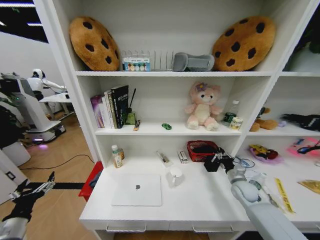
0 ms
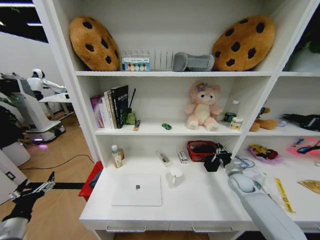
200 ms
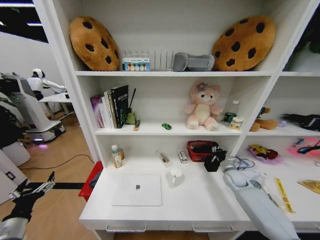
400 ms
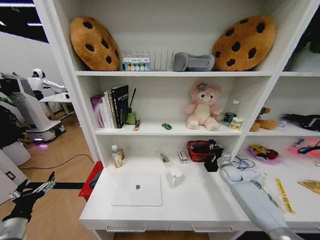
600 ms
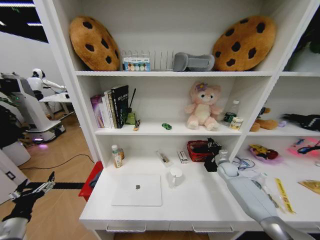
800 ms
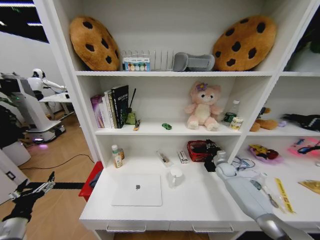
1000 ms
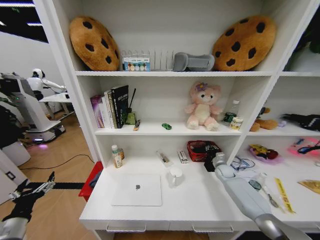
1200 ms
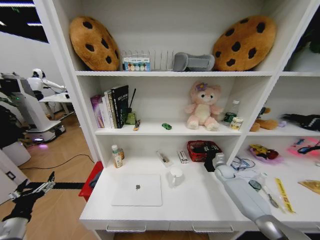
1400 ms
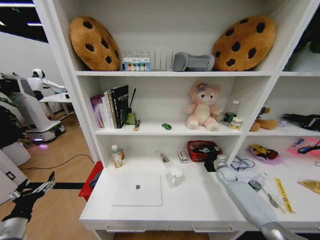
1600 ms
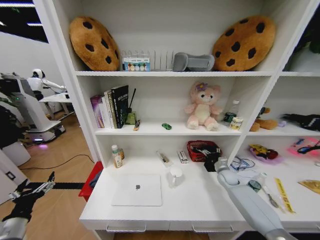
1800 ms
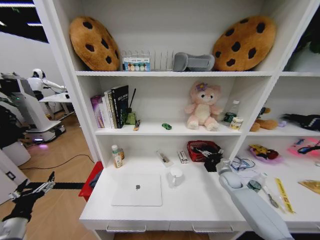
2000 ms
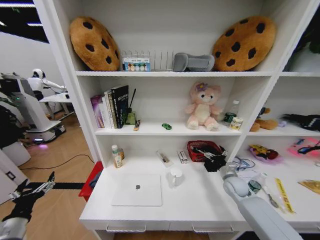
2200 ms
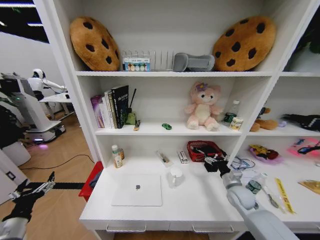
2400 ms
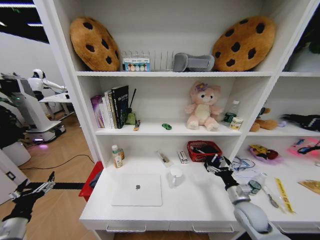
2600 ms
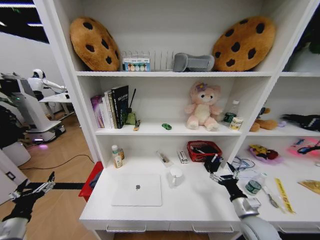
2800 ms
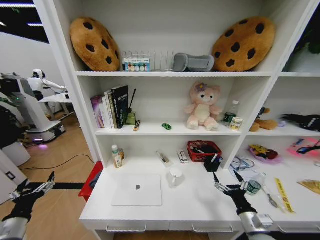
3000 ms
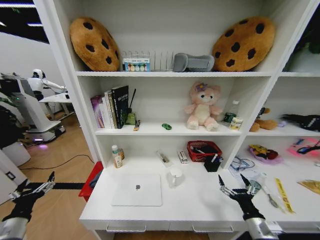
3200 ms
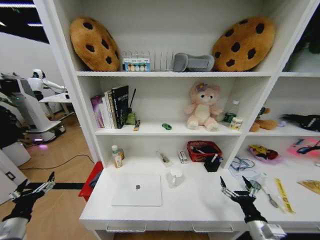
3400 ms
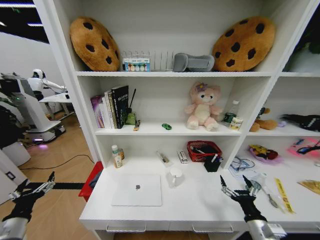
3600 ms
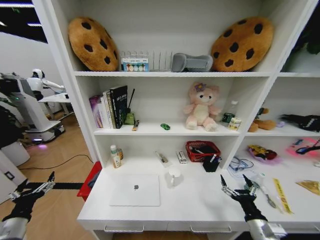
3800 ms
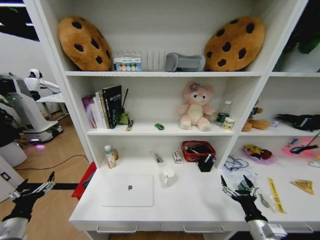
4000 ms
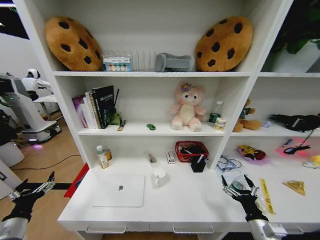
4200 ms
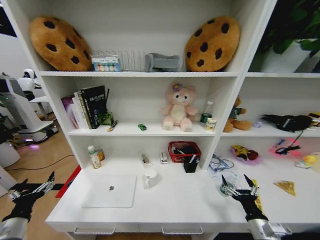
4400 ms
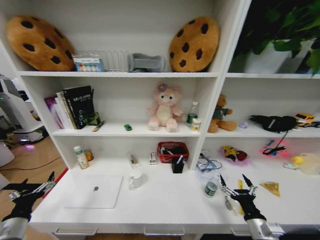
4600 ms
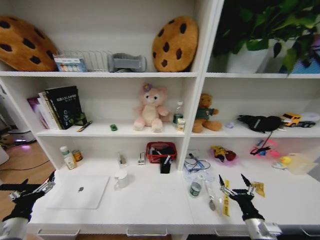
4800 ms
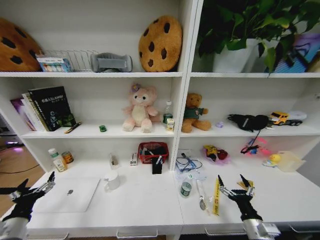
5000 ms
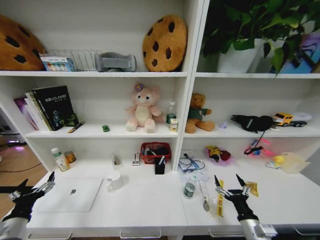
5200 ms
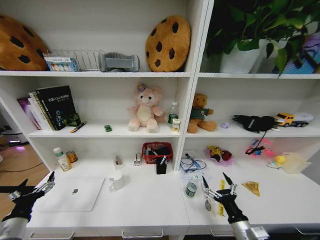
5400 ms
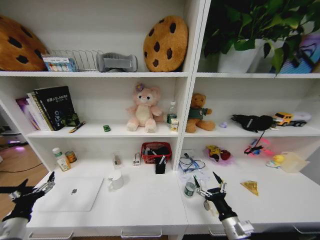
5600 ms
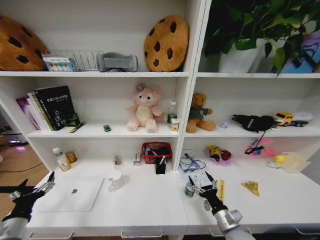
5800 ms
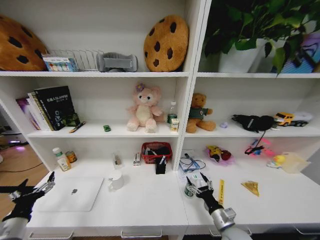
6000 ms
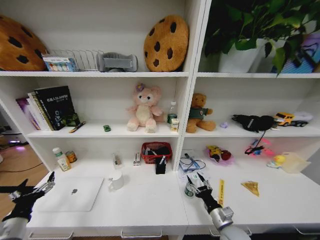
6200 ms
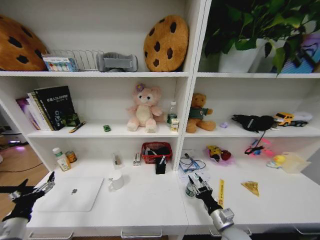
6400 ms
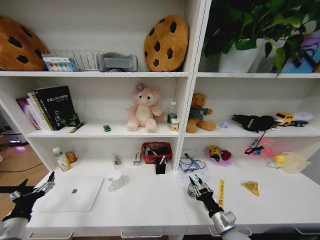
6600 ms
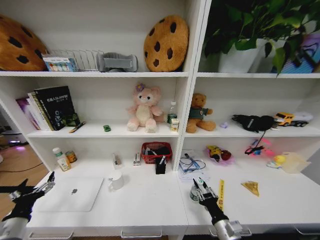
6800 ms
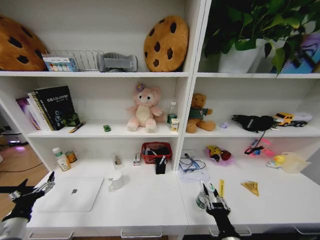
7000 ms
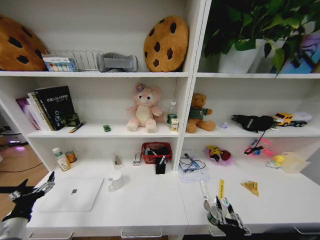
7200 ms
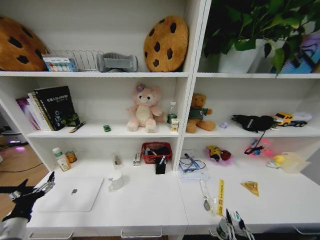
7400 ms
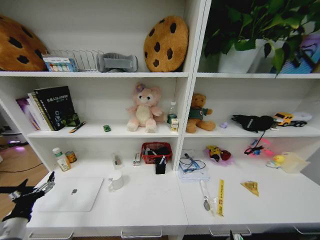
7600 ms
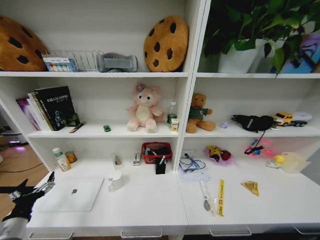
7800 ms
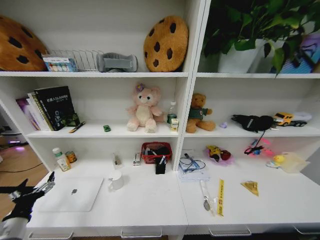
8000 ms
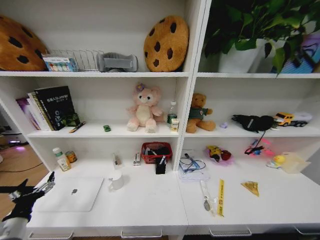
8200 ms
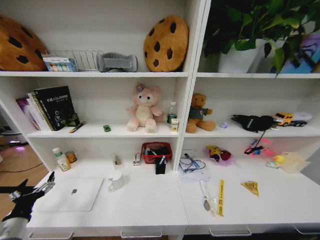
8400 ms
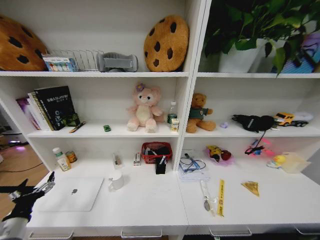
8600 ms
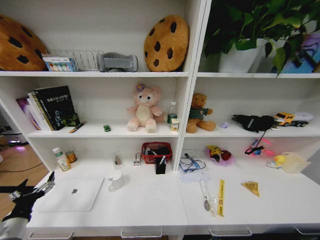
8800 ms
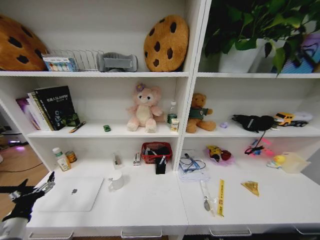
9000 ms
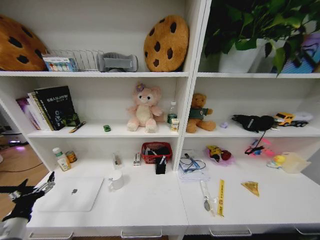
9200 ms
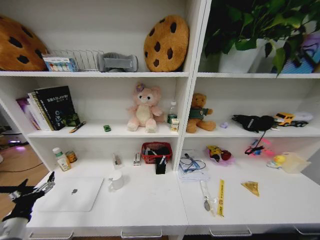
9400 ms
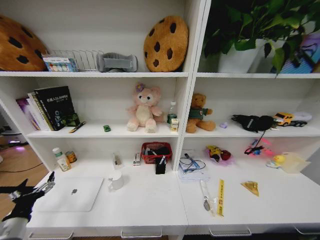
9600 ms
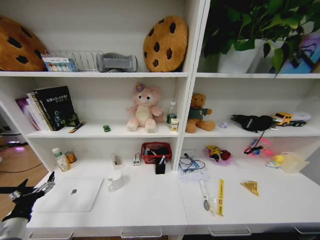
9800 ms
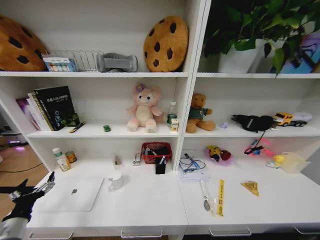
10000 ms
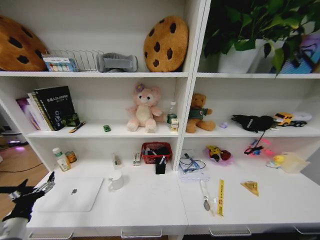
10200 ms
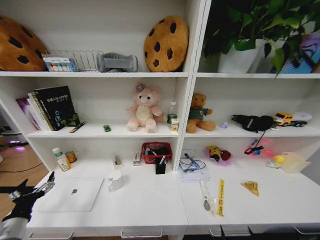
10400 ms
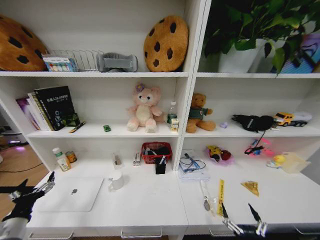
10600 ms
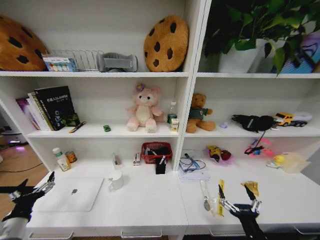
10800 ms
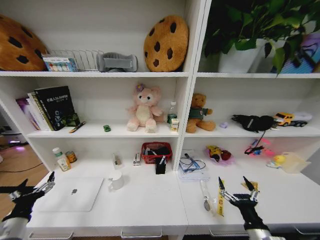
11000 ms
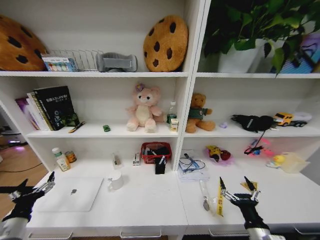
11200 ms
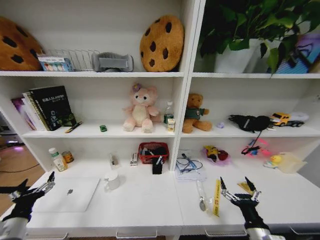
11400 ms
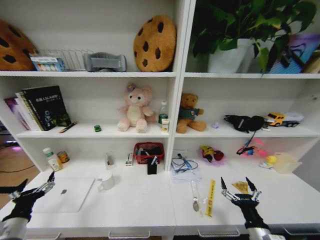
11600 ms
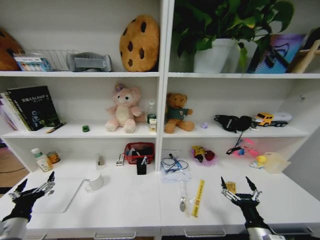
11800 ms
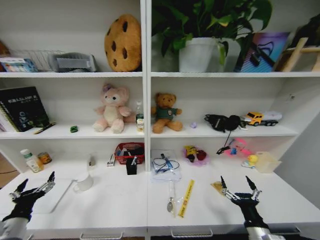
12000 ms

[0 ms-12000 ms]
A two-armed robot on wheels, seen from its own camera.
Task of the whole recording: Organize the objects on the table.
0 ms to 1600 ms: The right gripper shifts roughly 15 cm forward, and opens up.
1600 ms to 3000 ms: The right gripper moves backward, some 30 cm, and opens its fingers.
4400 ms to 6000 ms: The right gripper shifts about 10 cm to the left.
6000 ms to 7600 ms: The right gripper moves backward, about 20 cm, and closes up.
10400 ms to 12000 ms: The right gripper shifts roughly 15 cm forward and upward.

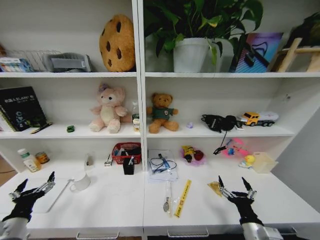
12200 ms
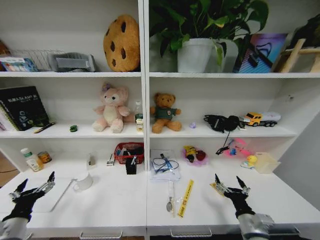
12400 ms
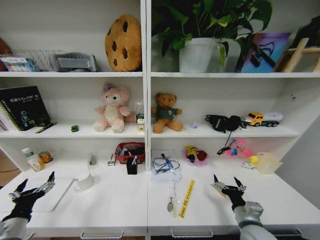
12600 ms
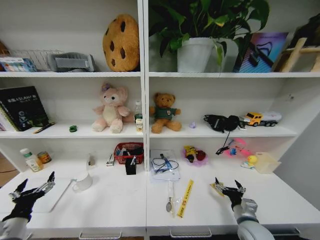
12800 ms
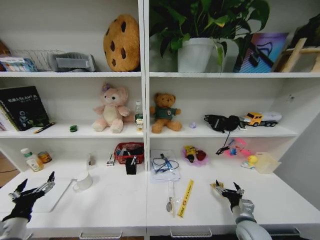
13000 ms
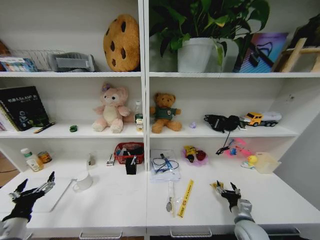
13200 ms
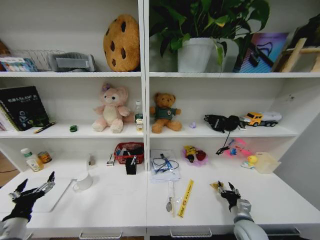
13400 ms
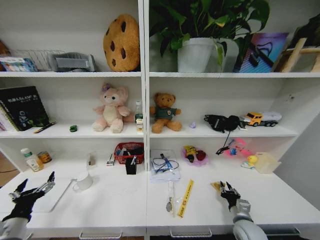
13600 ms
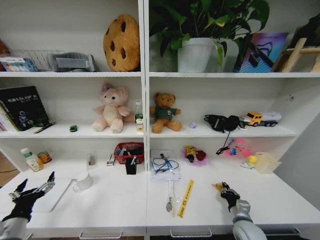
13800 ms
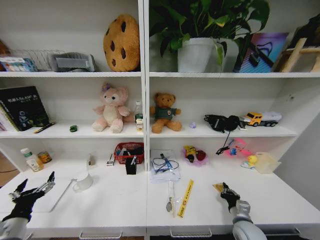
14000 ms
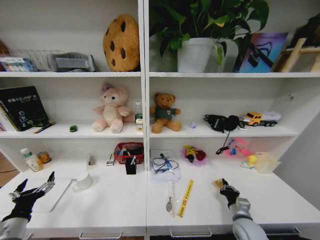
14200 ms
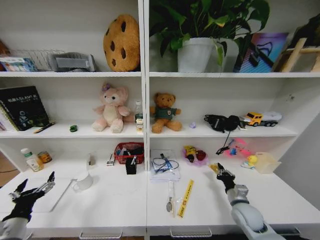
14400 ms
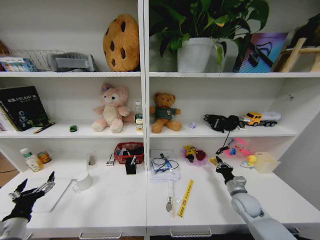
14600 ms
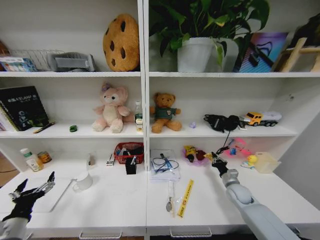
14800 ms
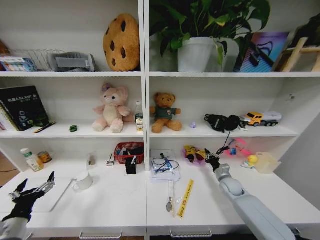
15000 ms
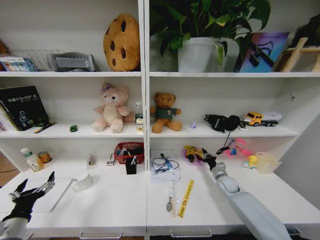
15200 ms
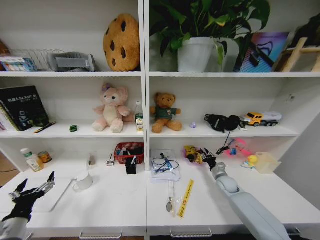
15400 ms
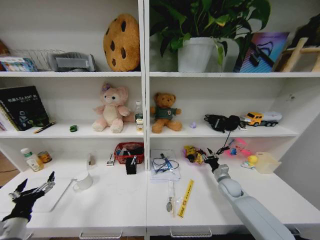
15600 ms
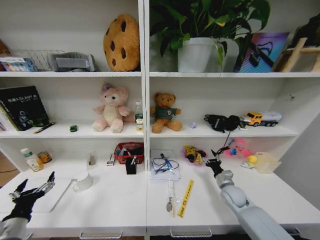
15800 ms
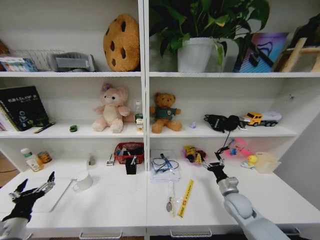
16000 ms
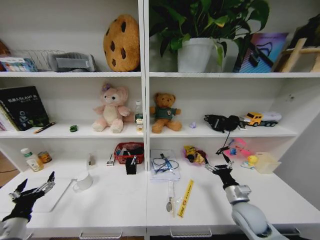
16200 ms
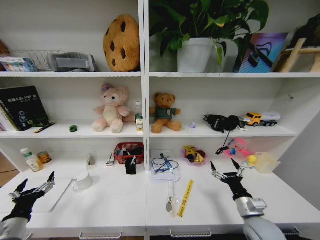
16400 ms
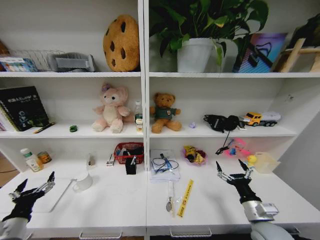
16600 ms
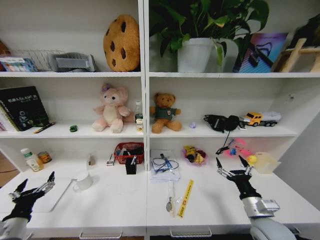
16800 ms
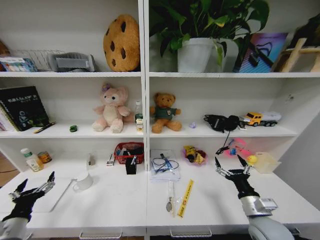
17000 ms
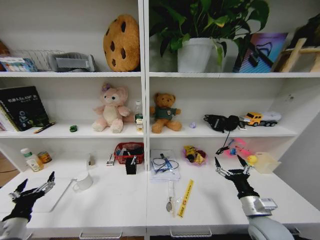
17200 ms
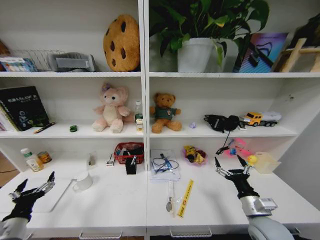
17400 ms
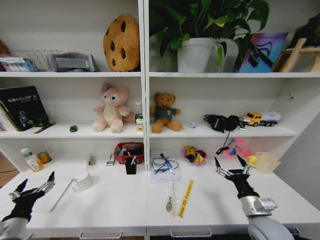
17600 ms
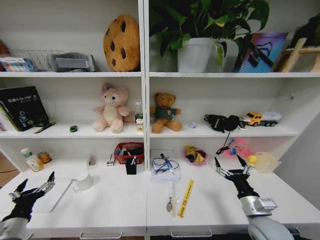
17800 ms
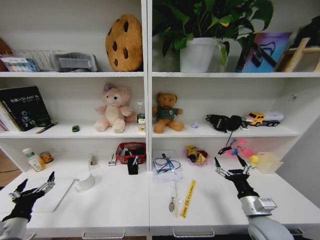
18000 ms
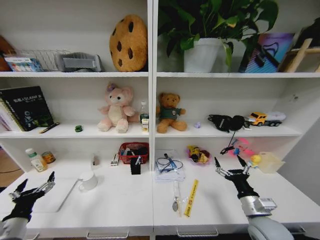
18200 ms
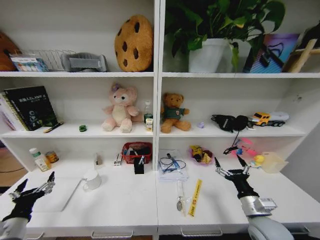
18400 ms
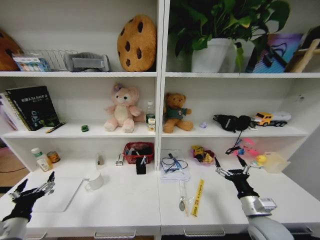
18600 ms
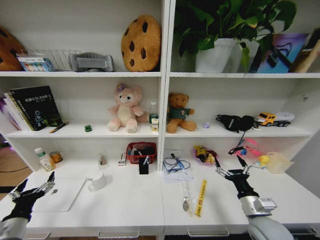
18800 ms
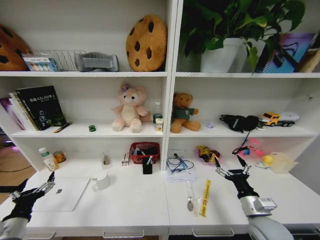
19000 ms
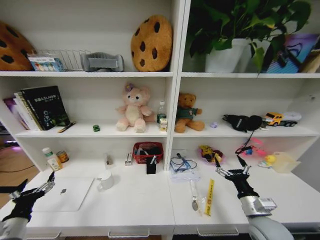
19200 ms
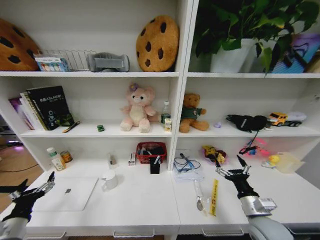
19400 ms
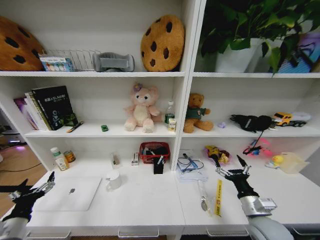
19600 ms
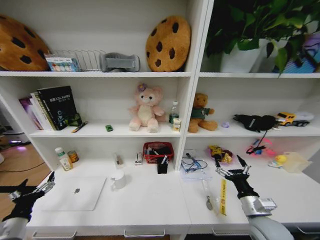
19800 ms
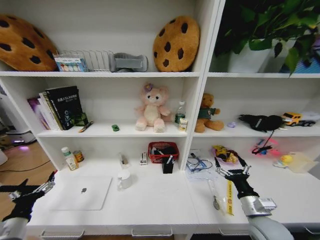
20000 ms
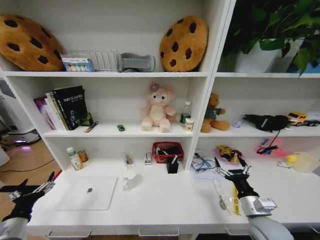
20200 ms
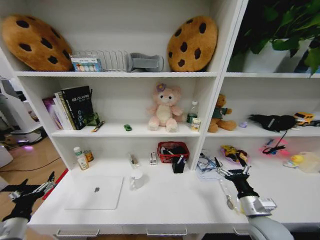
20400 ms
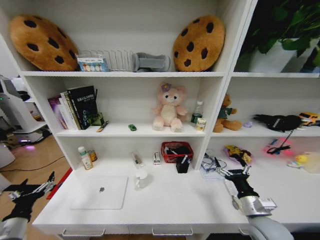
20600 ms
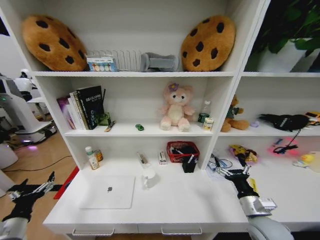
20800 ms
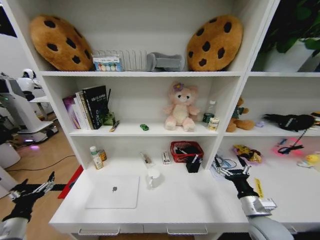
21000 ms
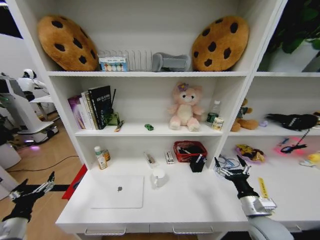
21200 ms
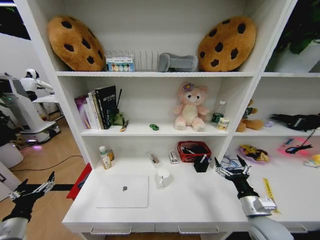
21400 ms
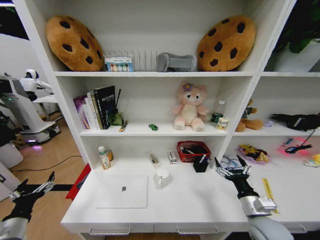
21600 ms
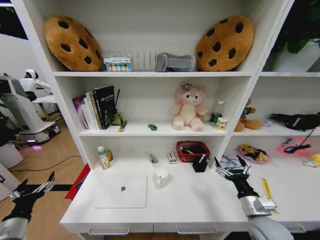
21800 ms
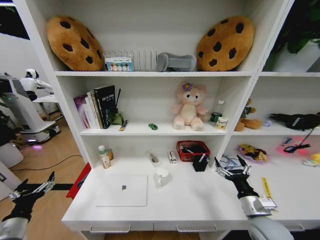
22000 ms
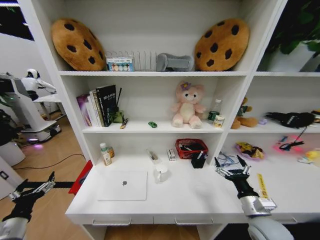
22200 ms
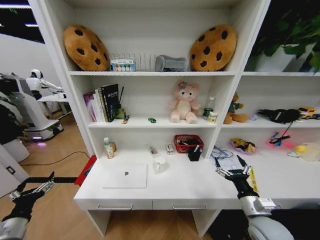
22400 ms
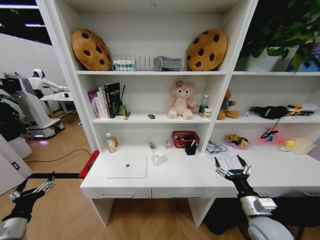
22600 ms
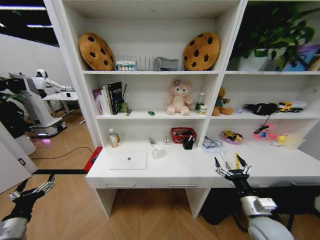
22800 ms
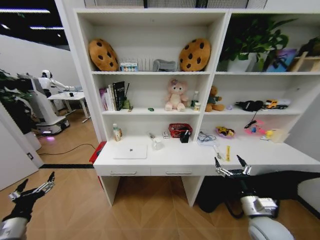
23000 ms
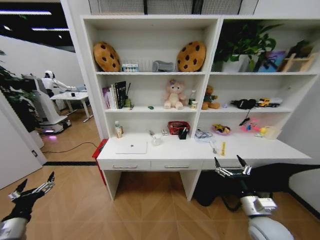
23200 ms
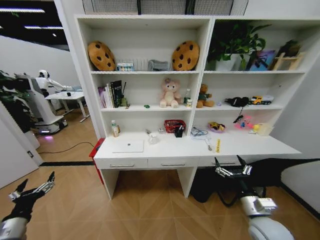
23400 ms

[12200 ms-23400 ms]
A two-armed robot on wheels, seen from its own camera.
Task of the whole recording: Organize the objects on the table.
12200 ms to 13800 ms: The right gripper shifts approximately 10 cm forward and downward, and closes.
13800 ms to 15400 ms: The right gripper heads forward, covering about 20 cm.
15400 ms to 17000 ms: The right gripper goes roughly 25 cm backward and upward, and opens up.
